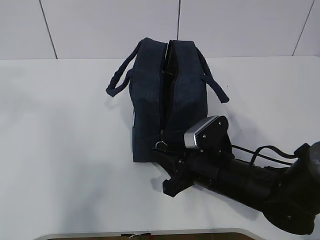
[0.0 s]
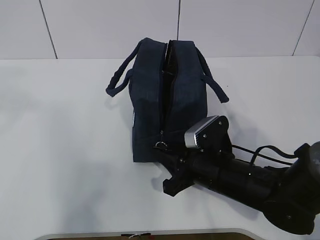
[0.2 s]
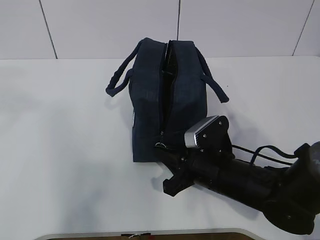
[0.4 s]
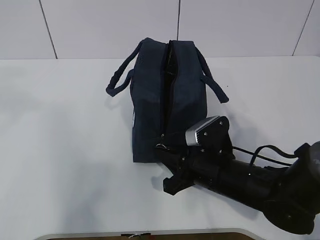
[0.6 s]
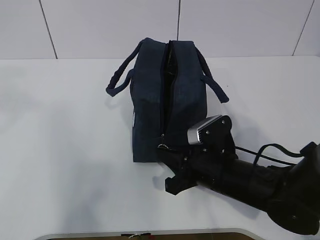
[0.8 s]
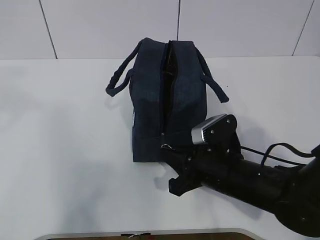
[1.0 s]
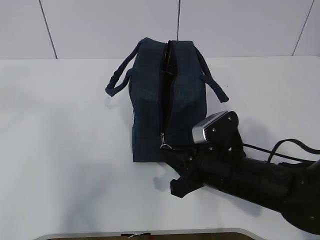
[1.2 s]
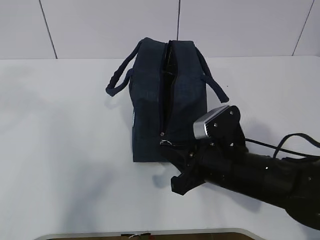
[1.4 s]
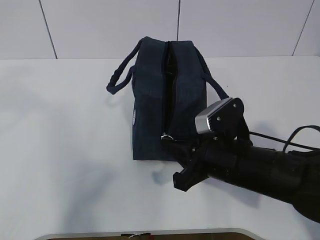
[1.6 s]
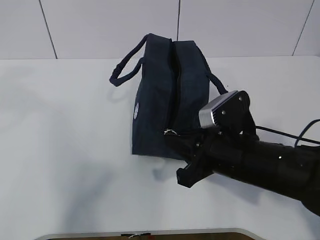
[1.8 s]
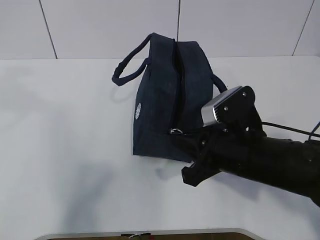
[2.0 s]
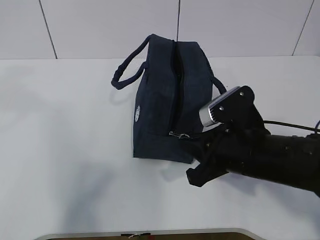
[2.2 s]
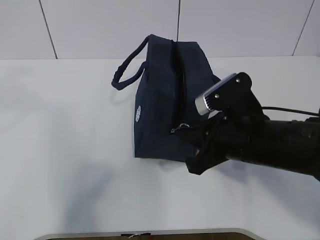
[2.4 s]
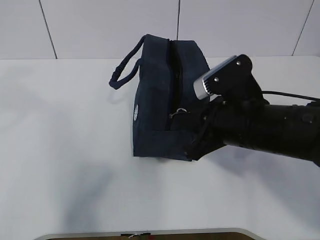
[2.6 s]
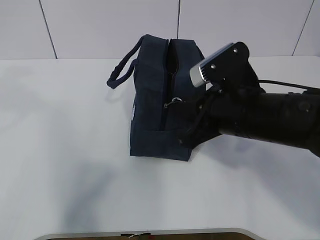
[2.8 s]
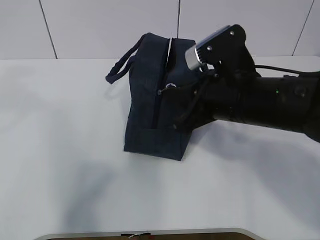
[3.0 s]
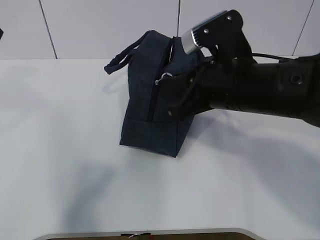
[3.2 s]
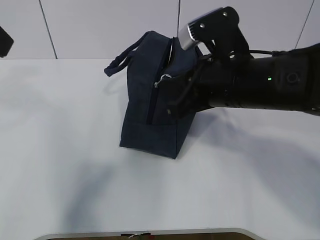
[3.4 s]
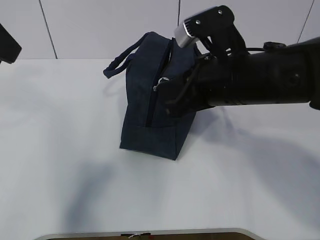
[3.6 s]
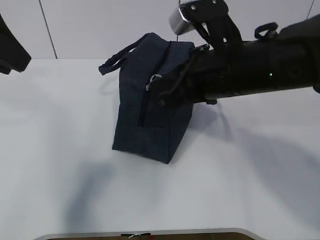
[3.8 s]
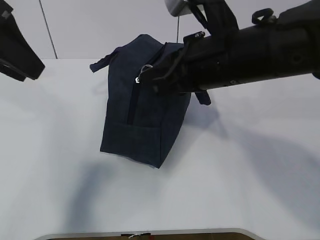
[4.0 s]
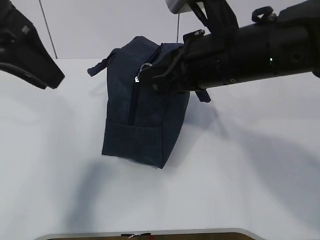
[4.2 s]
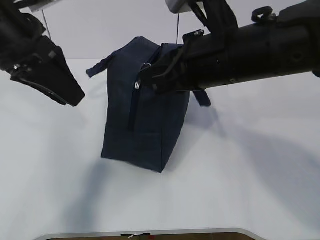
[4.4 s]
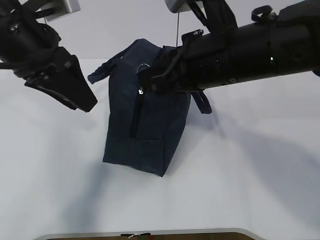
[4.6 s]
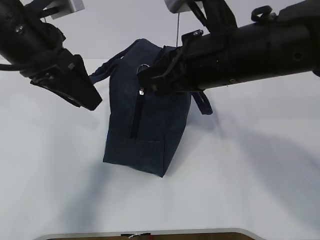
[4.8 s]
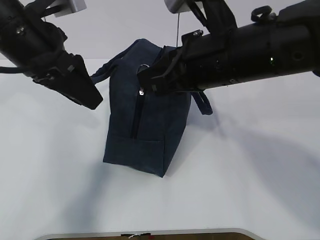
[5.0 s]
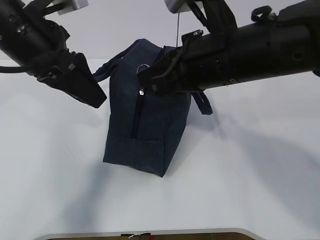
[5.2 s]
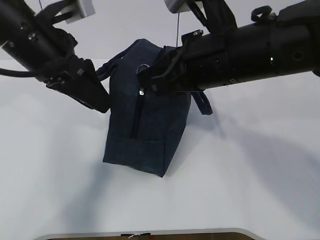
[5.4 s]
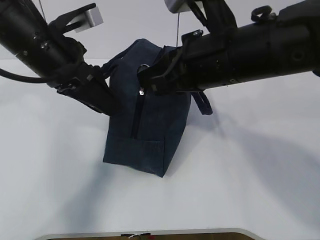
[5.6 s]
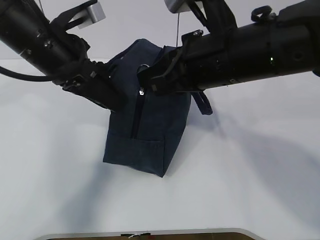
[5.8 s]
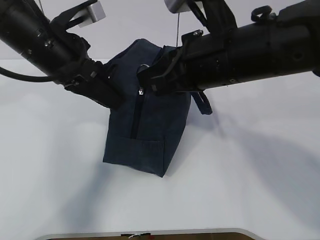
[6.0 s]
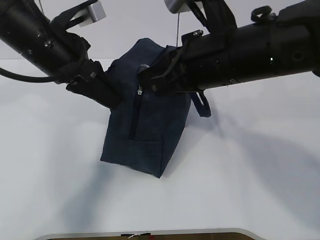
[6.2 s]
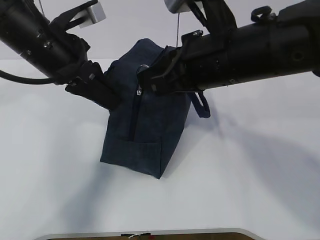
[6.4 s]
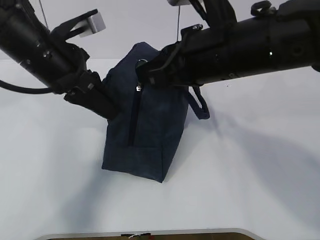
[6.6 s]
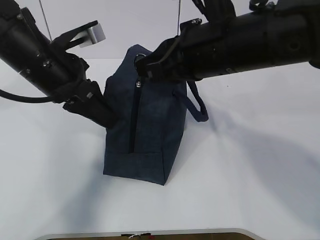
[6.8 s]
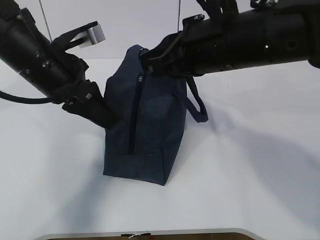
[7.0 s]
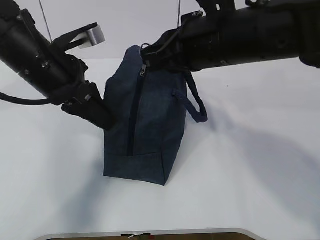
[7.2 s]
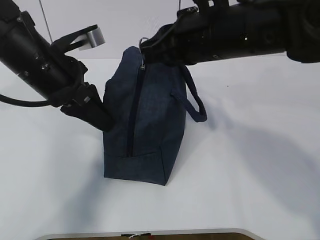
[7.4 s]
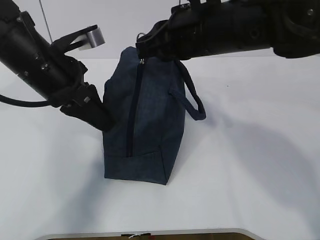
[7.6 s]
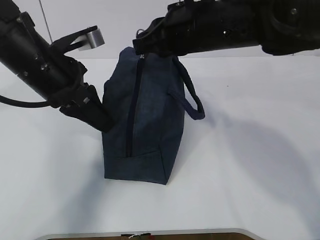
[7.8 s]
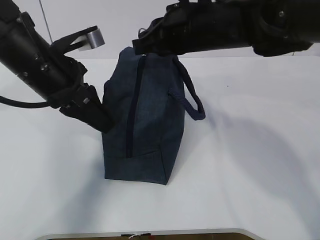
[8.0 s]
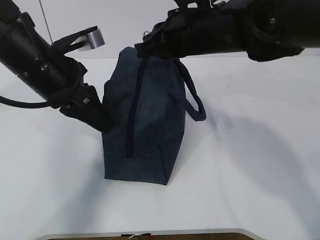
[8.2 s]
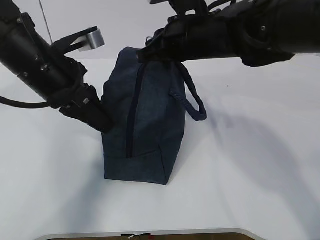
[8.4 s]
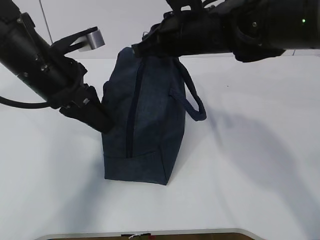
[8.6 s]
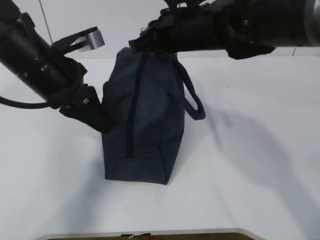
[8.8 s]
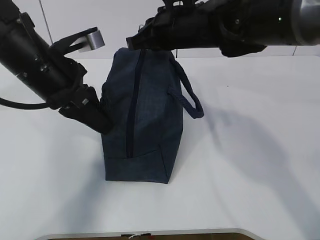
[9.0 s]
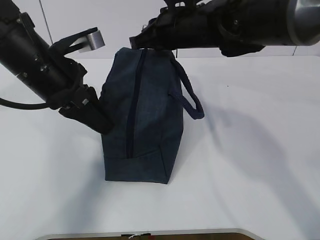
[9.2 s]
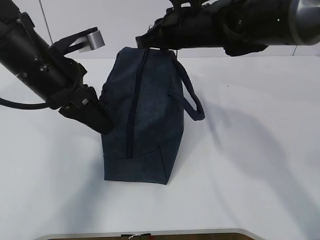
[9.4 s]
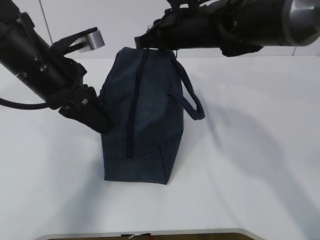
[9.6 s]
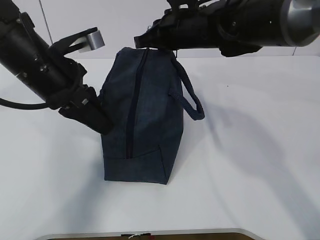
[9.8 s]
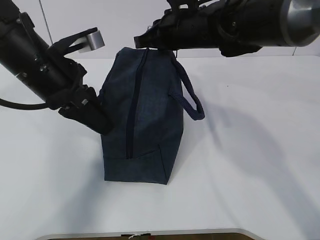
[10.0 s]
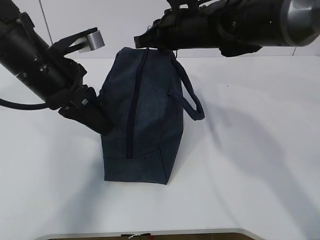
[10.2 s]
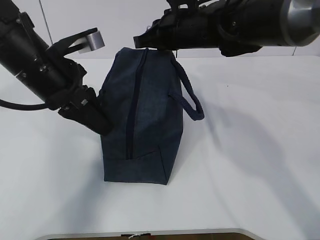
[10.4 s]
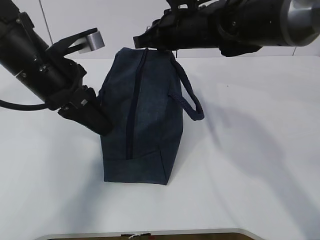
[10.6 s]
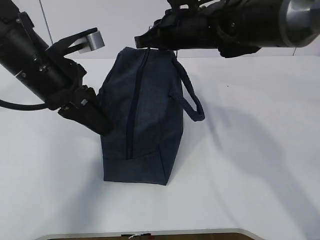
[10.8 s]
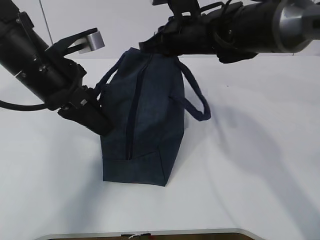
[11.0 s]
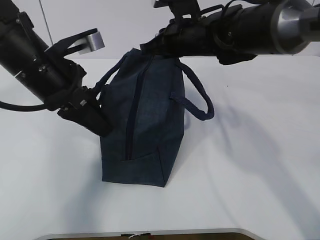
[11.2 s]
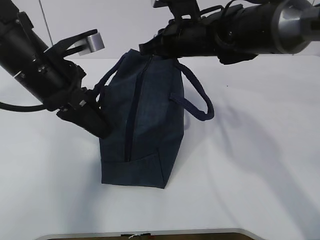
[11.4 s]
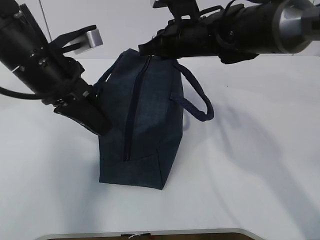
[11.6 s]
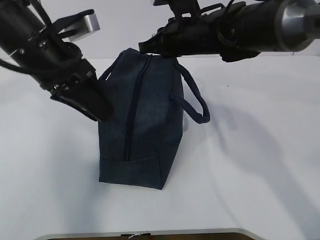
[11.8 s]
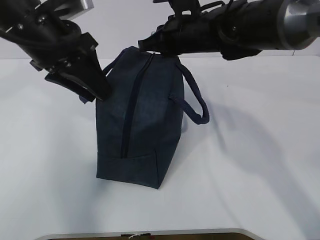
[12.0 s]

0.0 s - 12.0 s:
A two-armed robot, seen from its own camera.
Step, 1.4 s - 11.6 s: Pull the zipper with your right hand.
0.0 s - 1.6 s: The right gripper goes roughly 5 cm upward, and closes up.
1.6 s - 3.0 s: The right gripper shifts approximately 10 cm upward.
3.0 s - 4.4 s: The right gripper moves upward, approximately 5 cm, while the left gripper heads downward, forward and to the right, covering some 15 cm.
4.4 s - 6.0 s: The left gripper shifts by roughly 5 cm.
6.0 s - 7.6 s: The right gripper moves approximately 5 cm, while the left gripper closes up.
7.6 s - 9.0 s: The right gripper shifts some 5 cm forward.
9.0 s - 10.4 s: The grippers make only small movements.
10.4 s - 12.0 s: The left gripper opens its fingers.

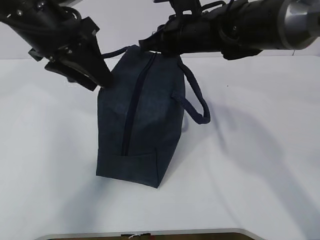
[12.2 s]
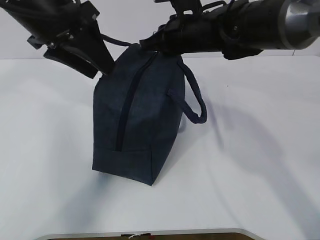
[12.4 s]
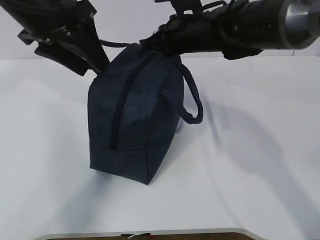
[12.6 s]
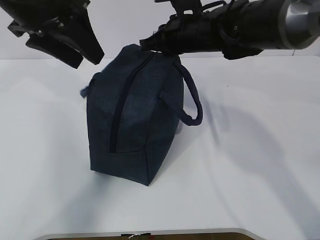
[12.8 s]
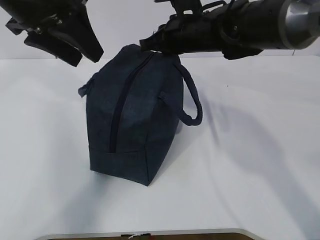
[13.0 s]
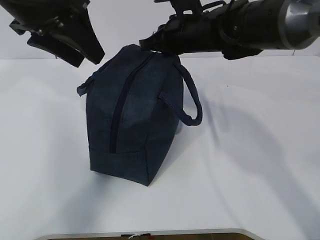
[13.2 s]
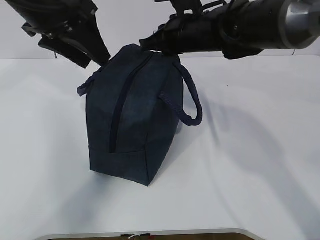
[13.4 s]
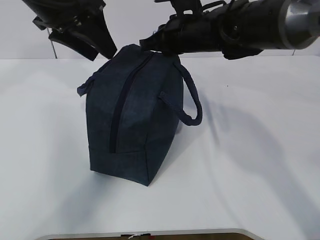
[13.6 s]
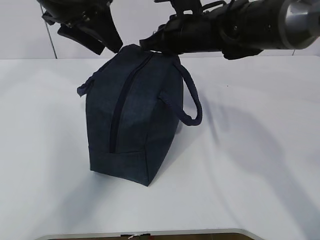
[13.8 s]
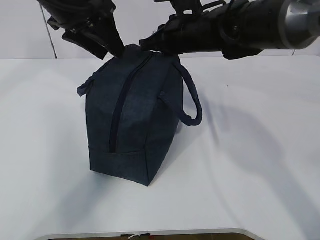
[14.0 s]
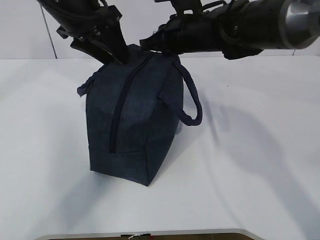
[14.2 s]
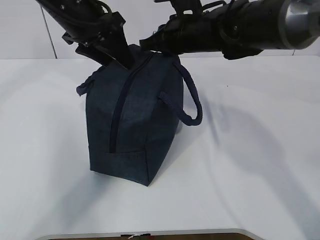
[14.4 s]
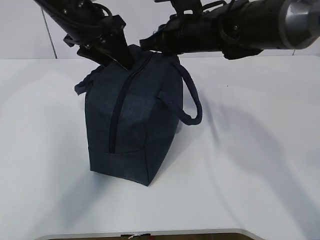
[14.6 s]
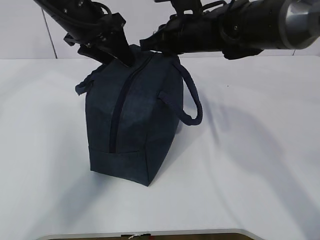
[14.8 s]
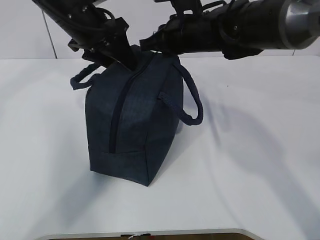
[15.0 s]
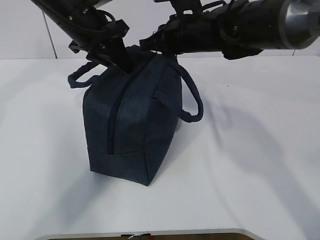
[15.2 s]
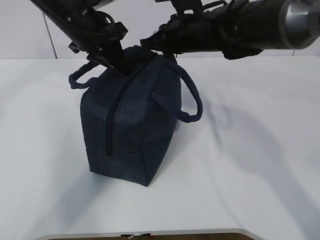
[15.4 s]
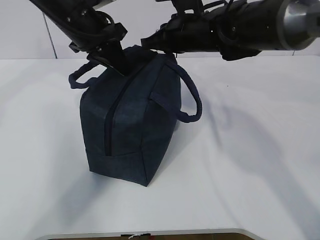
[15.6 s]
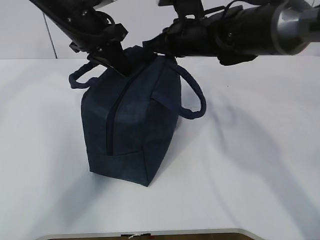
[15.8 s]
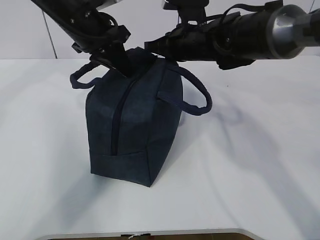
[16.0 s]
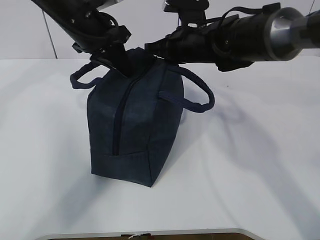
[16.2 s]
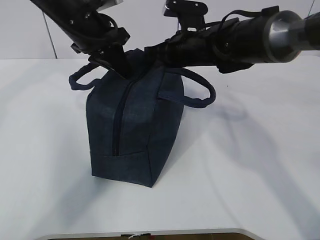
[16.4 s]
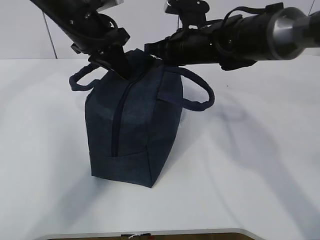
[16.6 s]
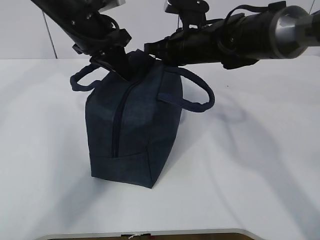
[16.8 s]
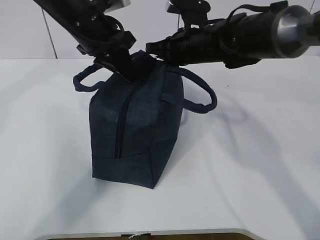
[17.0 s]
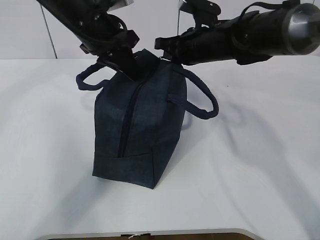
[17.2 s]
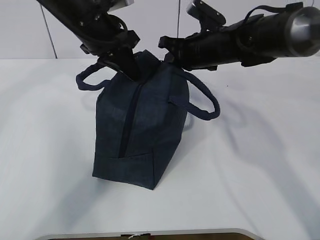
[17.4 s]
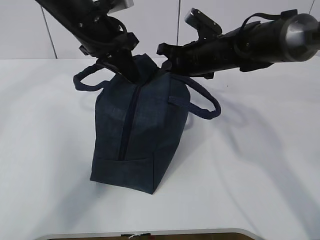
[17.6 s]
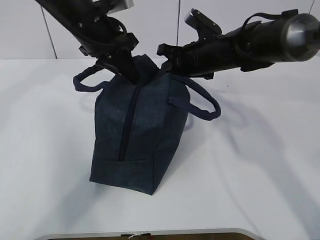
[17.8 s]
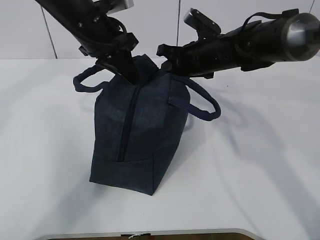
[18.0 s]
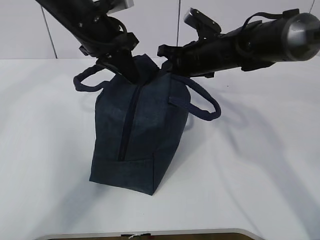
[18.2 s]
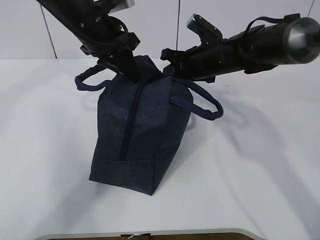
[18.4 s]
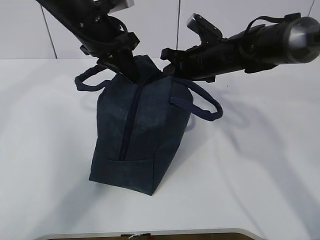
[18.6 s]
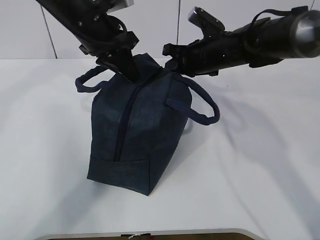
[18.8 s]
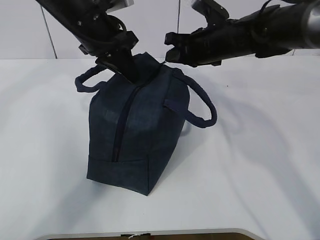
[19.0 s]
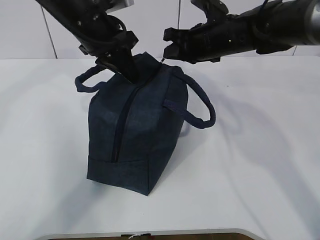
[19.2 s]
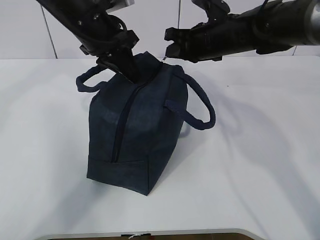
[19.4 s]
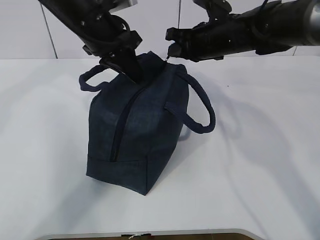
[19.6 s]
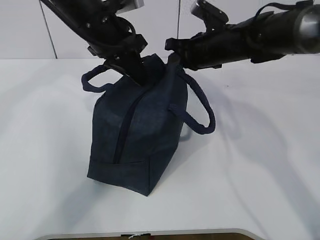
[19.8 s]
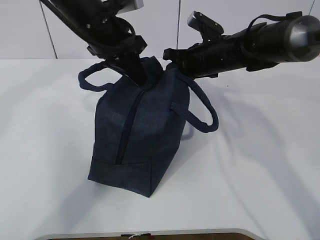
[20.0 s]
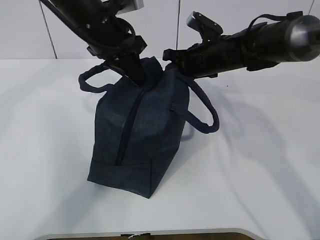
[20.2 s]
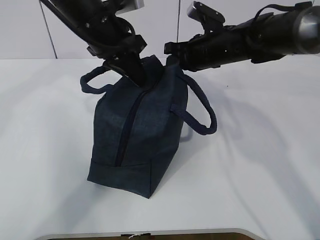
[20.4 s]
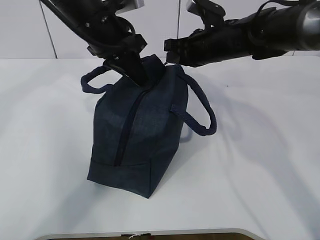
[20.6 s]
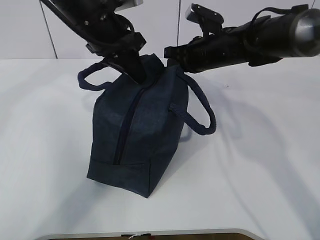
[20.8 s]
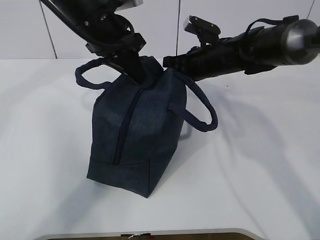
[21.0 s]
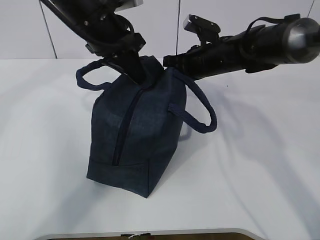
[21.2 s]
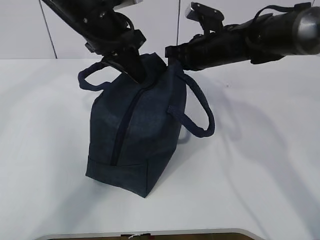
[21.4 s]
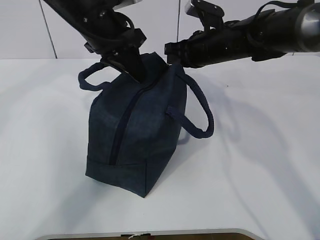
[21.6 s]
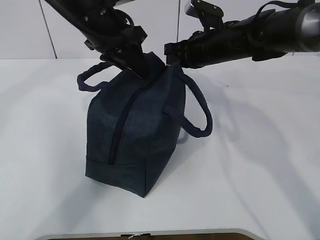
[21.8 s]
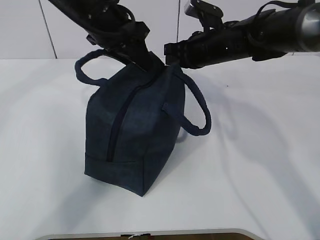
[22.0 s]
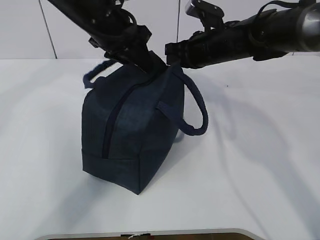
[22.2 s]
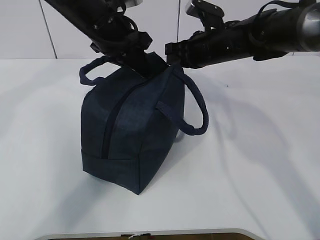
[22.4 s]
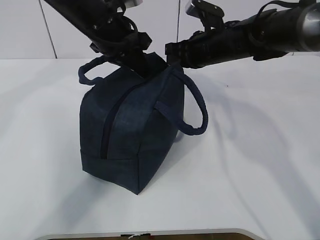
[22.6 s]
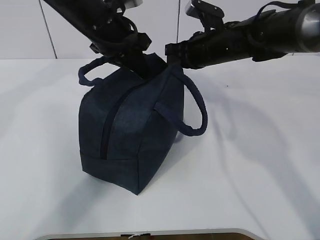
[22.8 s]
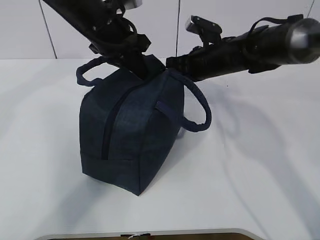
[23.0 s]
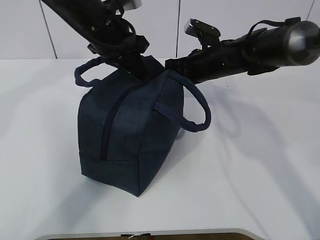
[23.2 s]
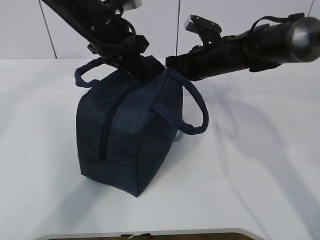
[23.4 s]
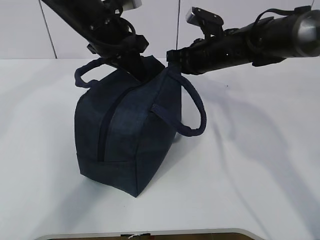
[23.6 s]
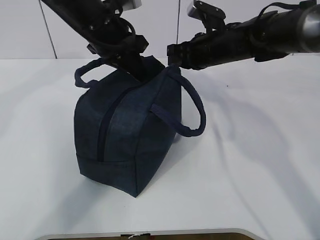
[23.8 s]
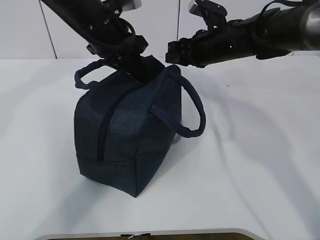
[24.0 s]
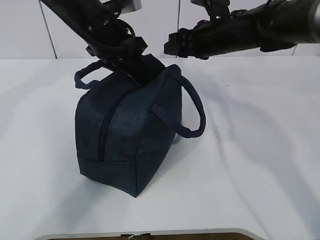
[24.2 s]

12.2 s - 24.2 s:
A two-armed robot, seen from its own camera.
12.2 s - 13.8 s: The left gripper is displaced forward by approximately 5 cm.
13.8 s - 15.2 s: The left gripper moves downward, roughly 5 cm, and closes up.
15.2 s - 16.6 s: The left gripper closes.
18.2 s - 21.2 s: The grippers move only a little.
21.2 s - 22.6 s: The left gripper opens, then closes once more.
22.6 s - 24.2 s: The left gripper opens its fingers, while the right gripper opens.
